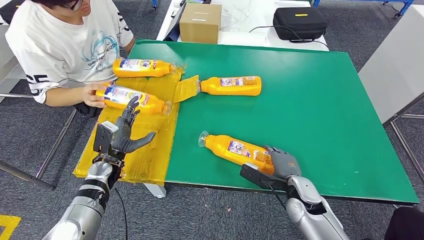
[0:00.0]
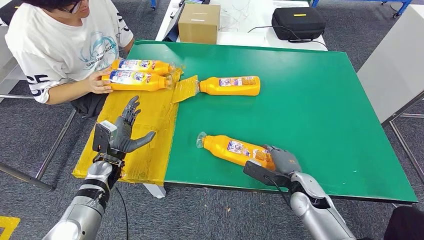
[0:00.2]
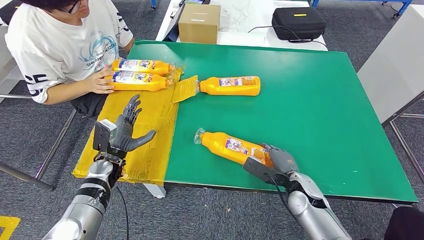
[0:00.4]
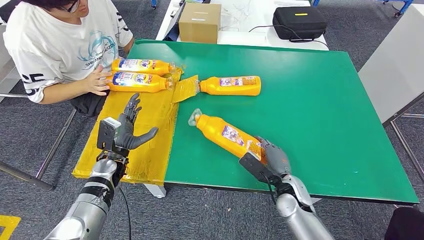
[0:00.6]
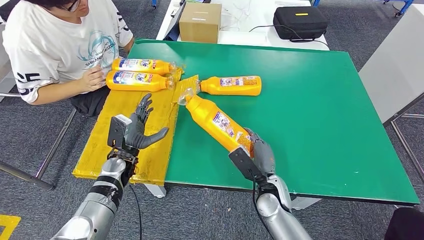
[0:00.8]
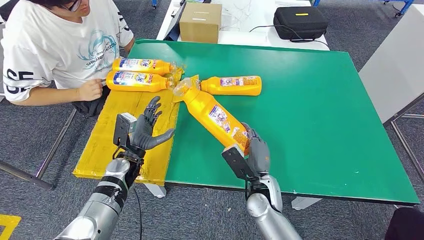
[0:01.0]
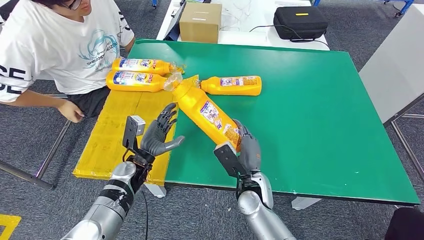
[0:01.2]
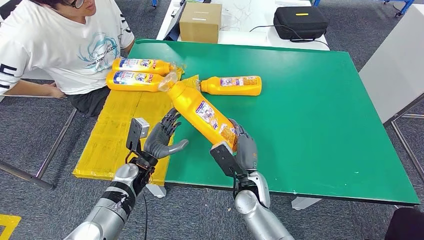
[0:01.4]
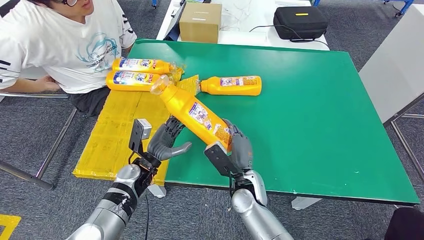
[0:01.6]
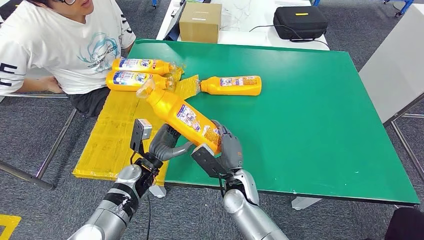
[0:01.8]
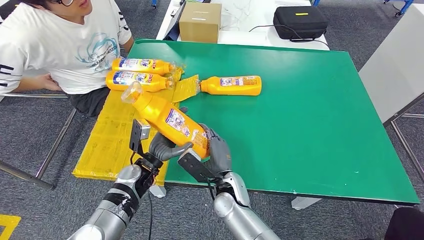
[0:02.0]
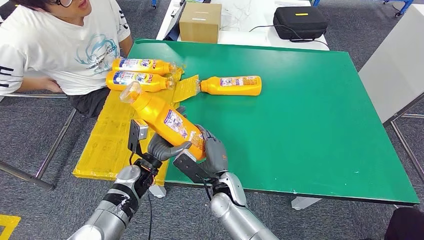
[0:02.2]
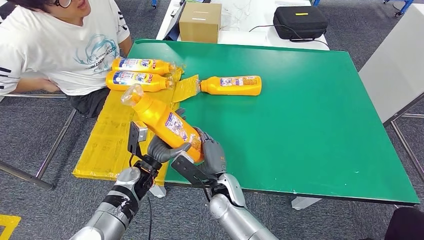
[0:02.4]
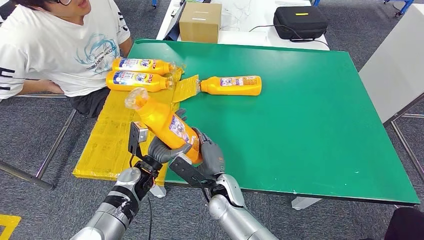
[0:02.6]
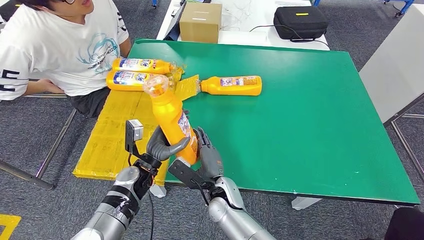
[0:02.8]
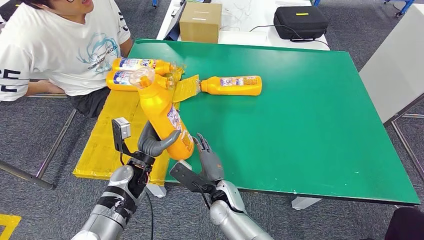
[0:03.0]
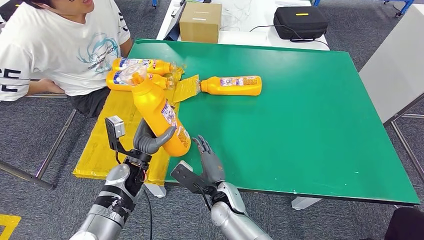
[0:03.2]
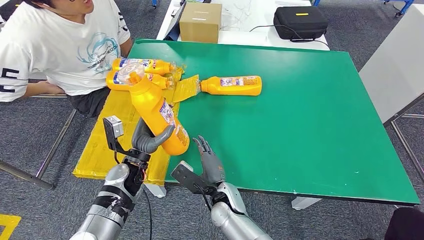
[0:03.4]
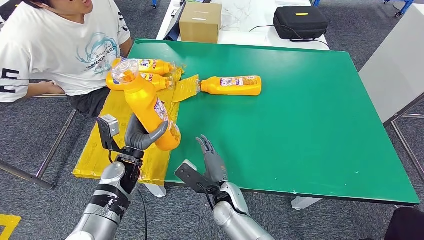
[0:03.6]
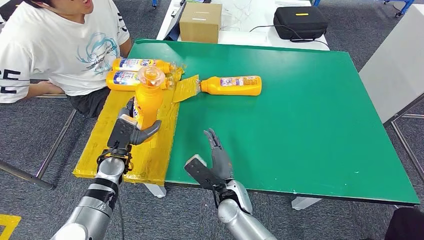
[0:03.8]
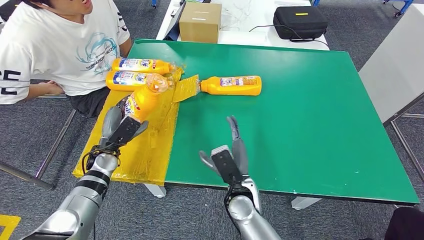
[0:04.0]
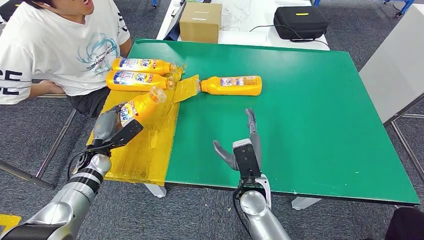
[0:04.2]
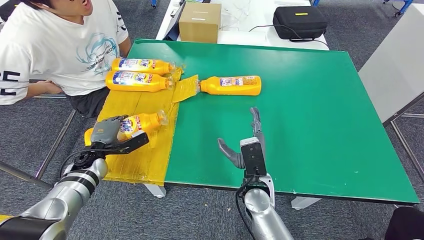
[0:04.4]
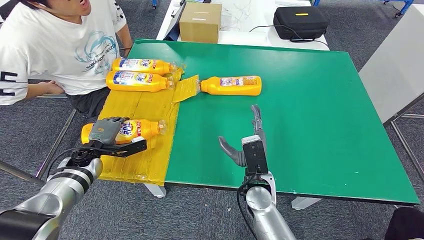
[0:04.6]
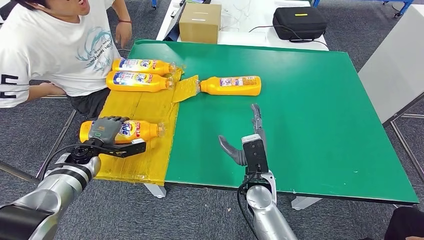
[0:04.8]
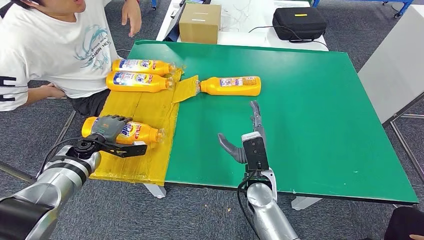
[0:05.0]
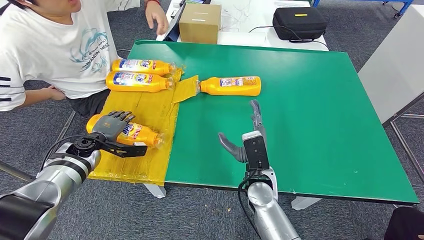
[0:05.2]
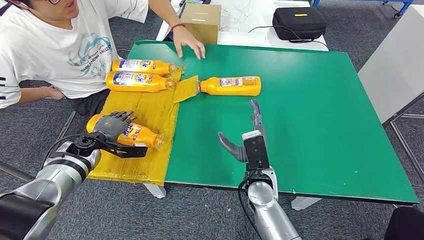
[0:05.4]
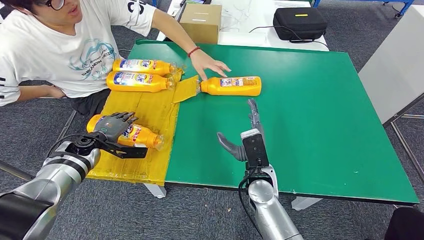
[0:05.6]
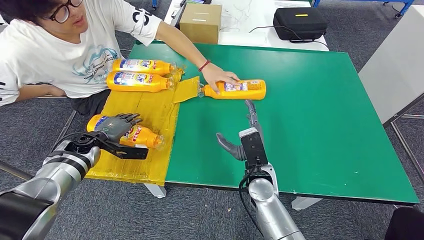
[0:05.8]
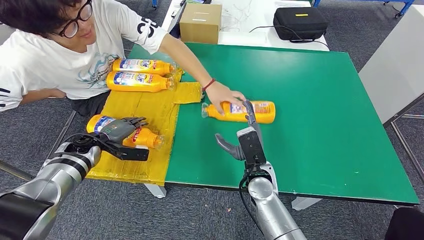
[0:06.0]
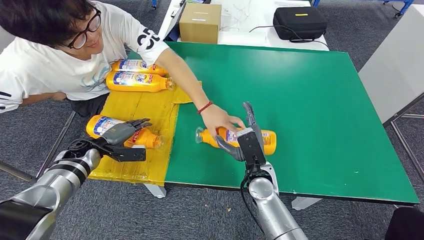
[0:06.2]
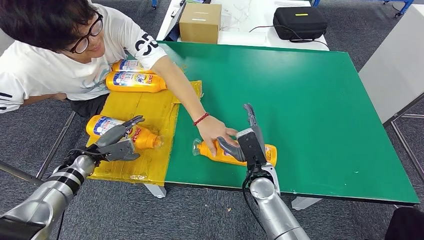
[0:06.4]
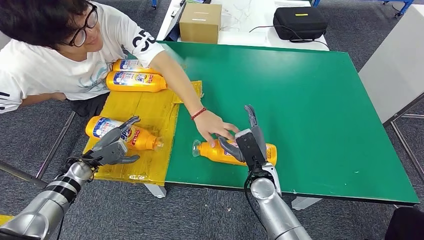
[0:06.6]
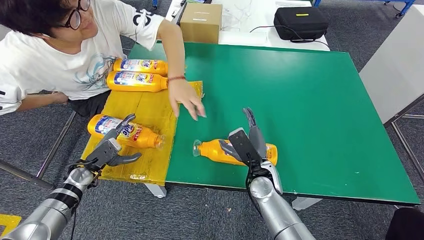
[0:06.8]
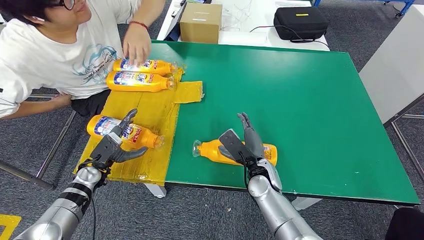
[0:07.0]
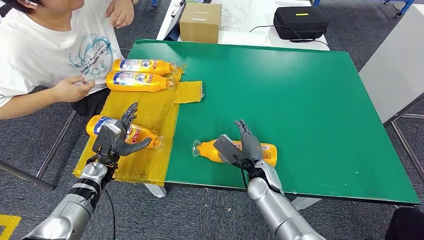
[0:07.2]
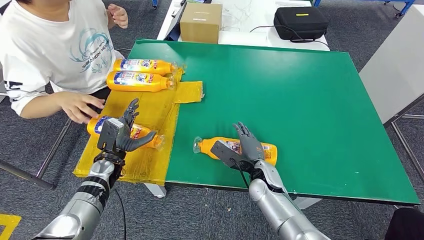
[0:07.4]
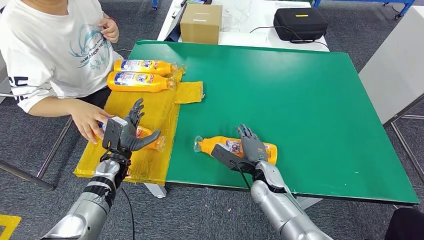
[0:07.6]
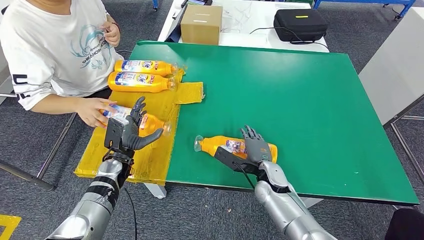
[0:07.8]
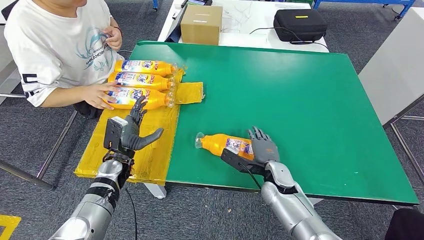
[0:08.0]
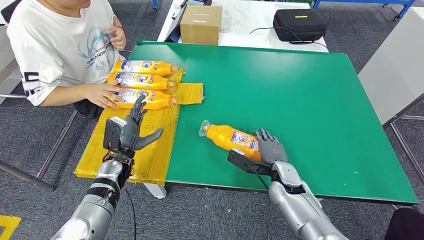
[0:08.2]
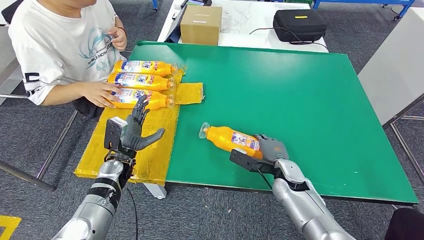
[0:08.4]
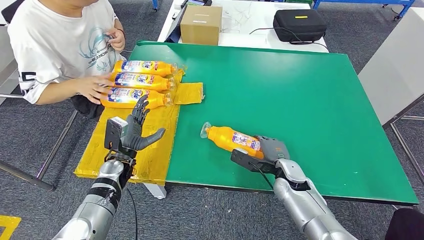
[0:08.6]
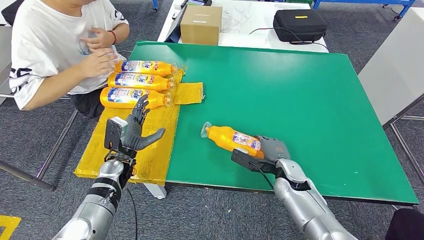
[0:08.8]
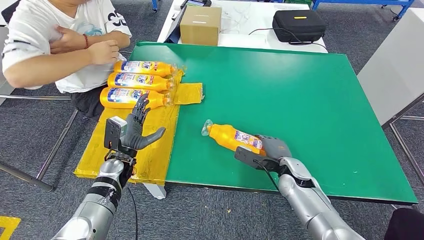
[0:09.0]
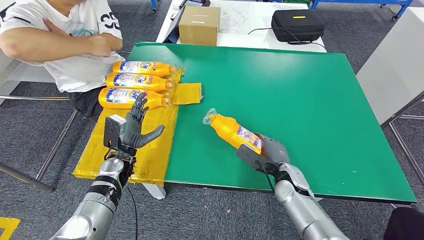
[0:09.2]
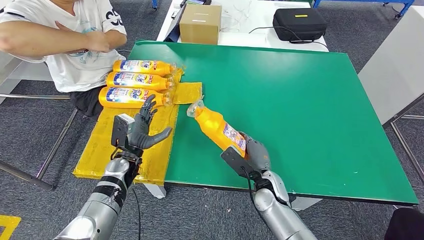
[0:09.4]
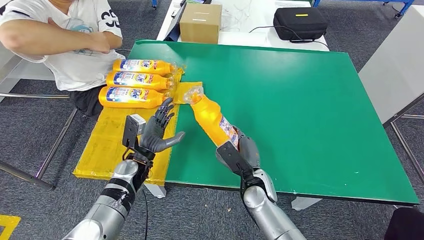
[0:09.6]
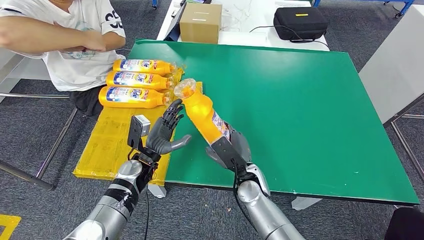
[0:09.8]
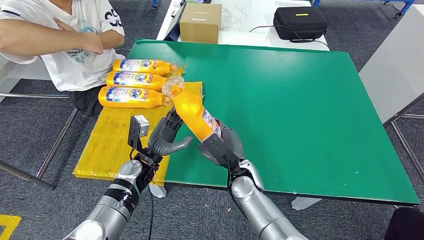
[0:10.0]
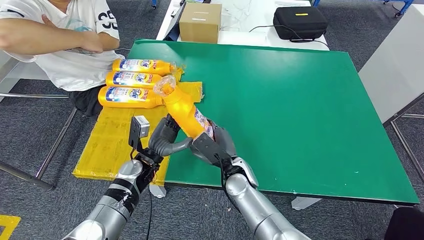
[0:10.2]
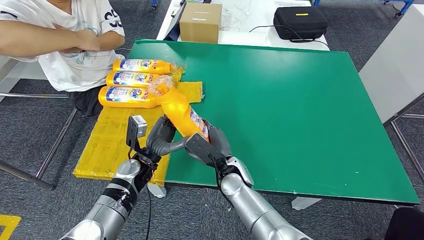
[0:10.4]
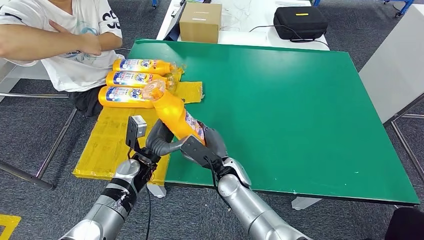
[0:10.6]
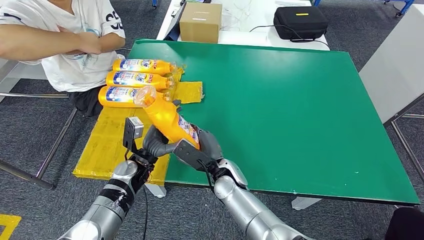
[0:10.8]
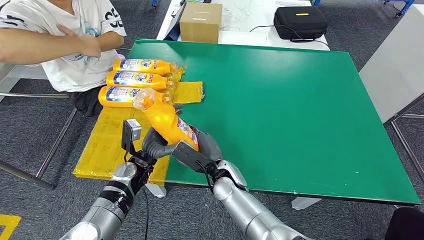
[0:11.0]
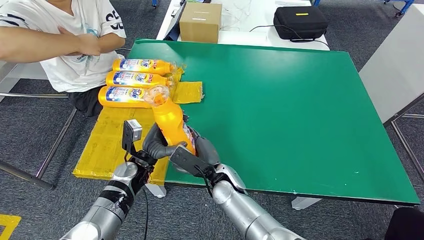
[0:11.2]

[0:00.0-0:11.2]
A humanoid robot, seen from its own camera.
Step, 0:02.0 to 0:05.0: Flip the bottle to face forward.
Step, 0:05.2 to 0:10.8: Pick up the bottle from the table.
0:01.6 to 0:03.2: The right hand shifts about 5 cm to the left.
0:09.6 to 0:11.2: The right hand moves to the left, roughly 10 cm.

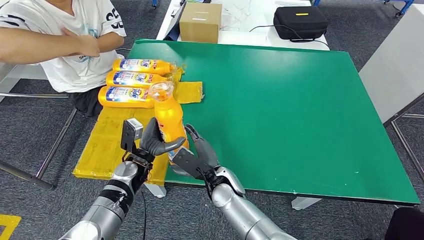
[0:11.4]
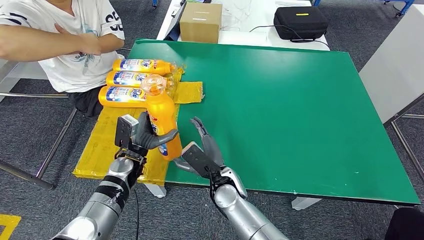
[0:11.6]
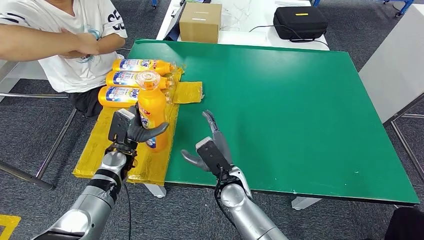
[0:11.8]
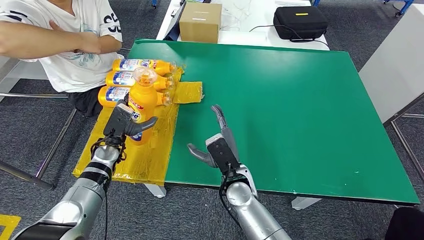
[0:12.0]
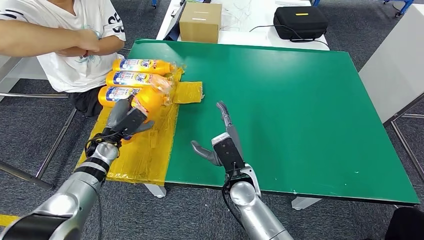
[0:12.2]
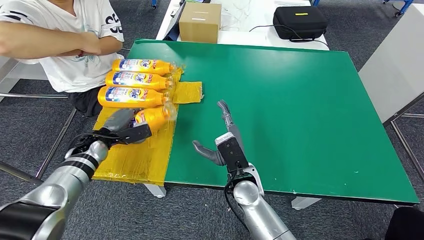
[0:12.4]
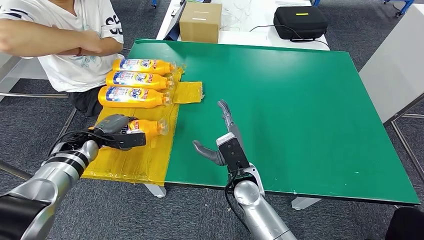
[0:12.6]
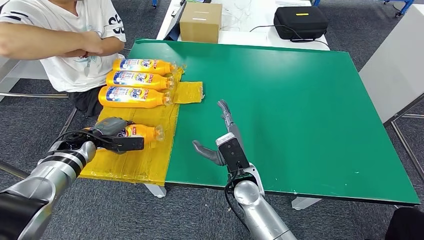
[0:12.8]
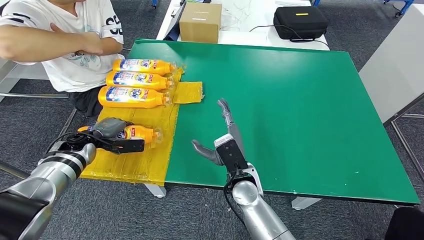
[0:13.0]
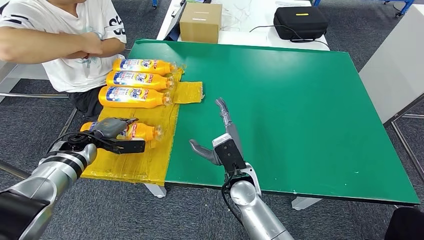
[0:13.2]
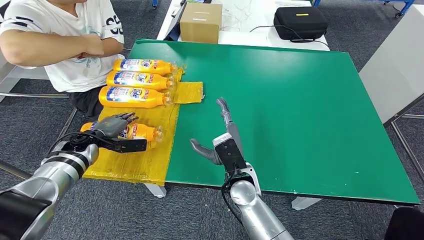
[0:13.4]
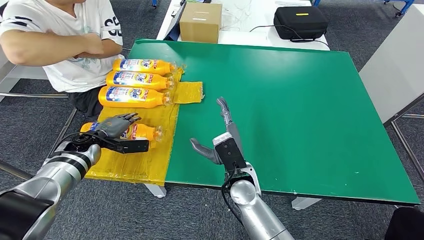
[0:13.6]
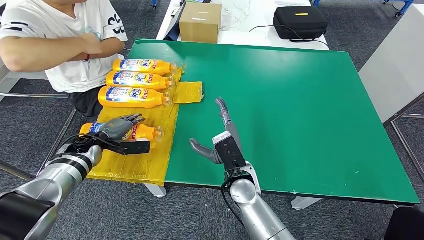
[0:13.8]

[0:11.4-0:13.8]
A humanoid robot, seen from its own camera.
Step, 0:11.4 to 0:13.8: Flip the bottle to face forward.
0:11.4 to 0:12.6: The right hand shifts by roughly 5 cm, while the left hand moves to the left, about 20 cm.
0:12.6 to 0:13.8: The hands move only a little.
